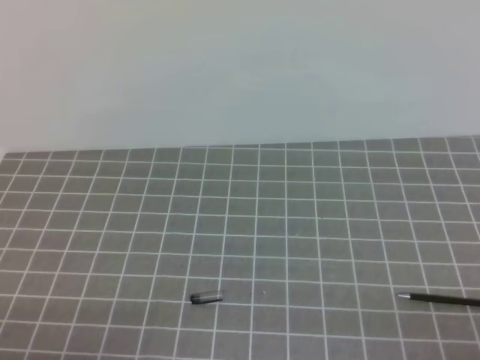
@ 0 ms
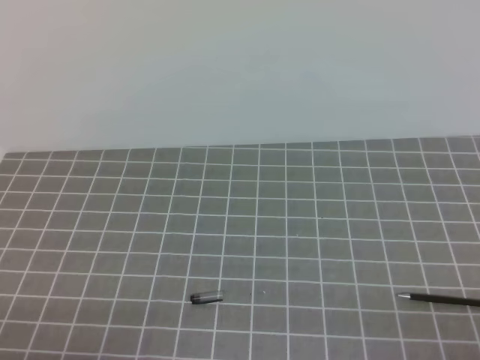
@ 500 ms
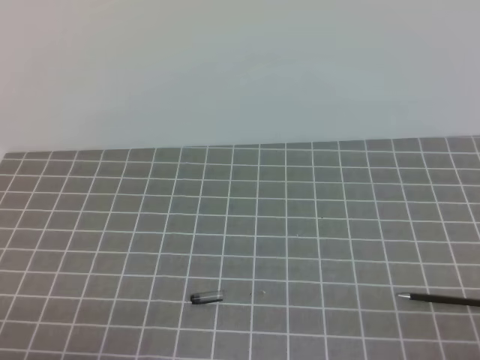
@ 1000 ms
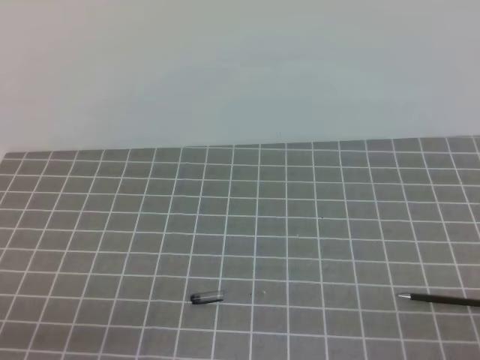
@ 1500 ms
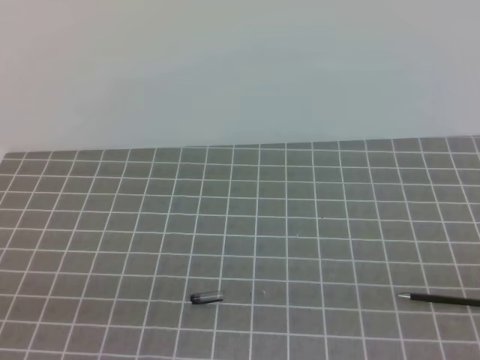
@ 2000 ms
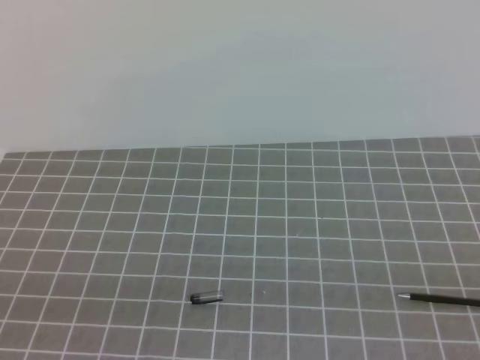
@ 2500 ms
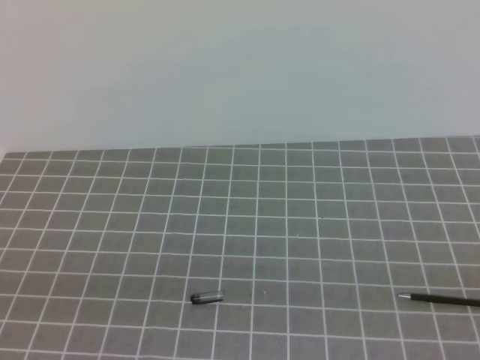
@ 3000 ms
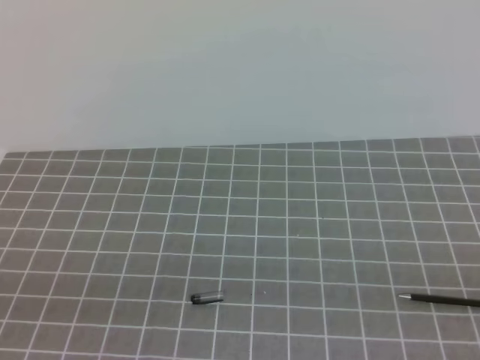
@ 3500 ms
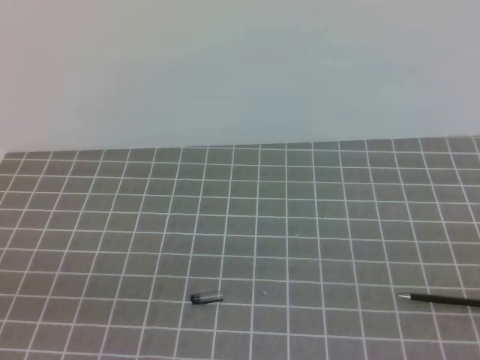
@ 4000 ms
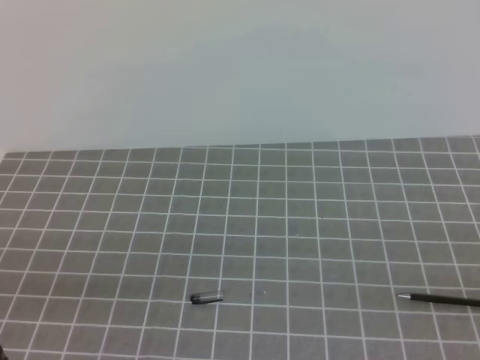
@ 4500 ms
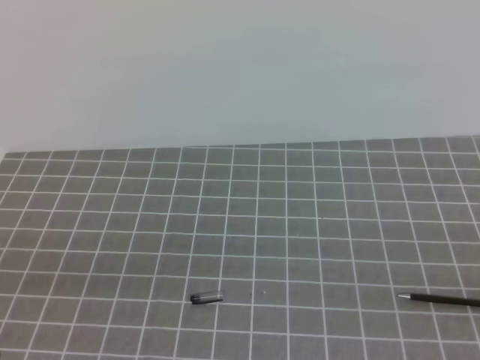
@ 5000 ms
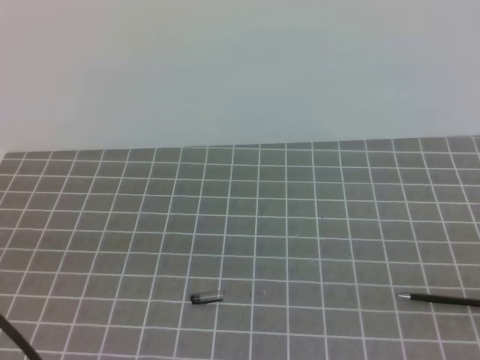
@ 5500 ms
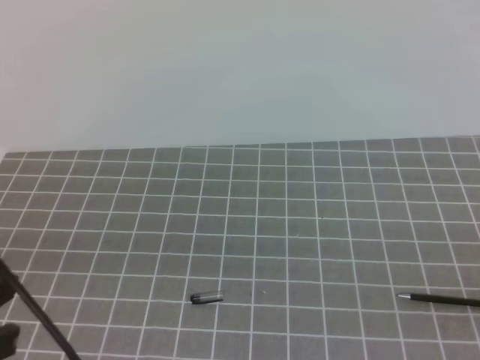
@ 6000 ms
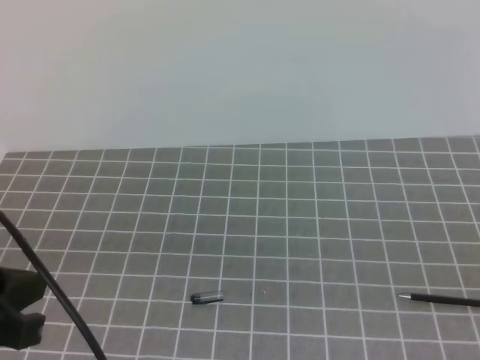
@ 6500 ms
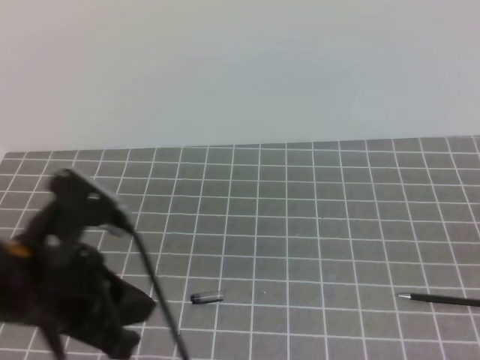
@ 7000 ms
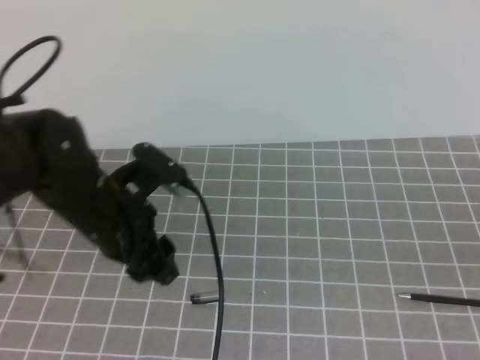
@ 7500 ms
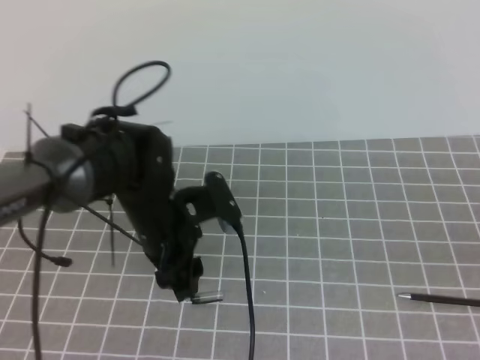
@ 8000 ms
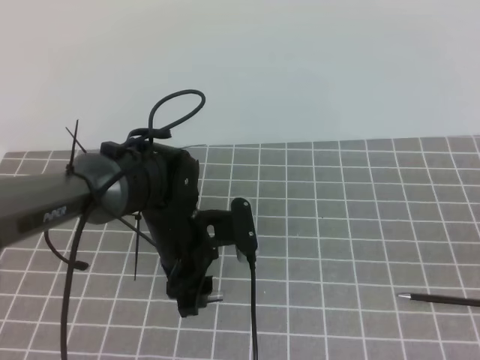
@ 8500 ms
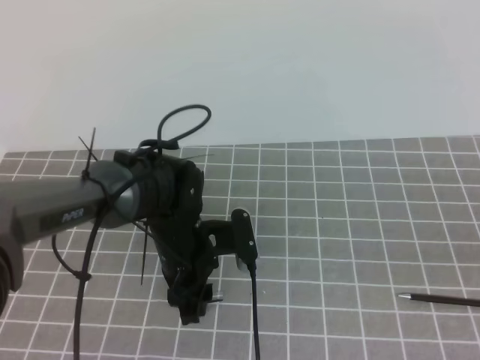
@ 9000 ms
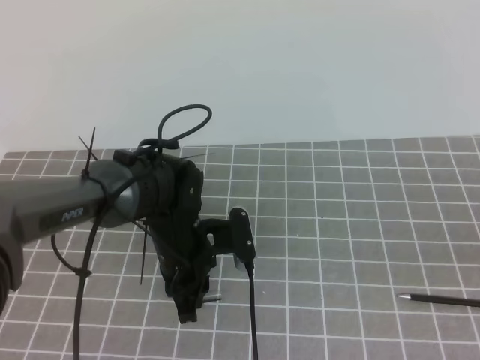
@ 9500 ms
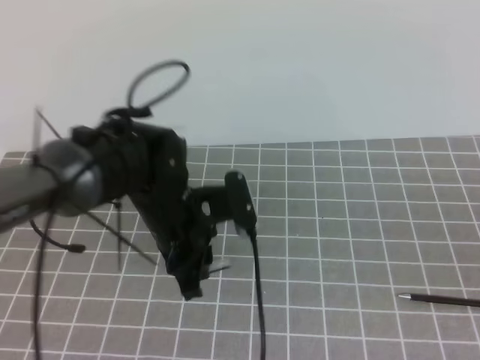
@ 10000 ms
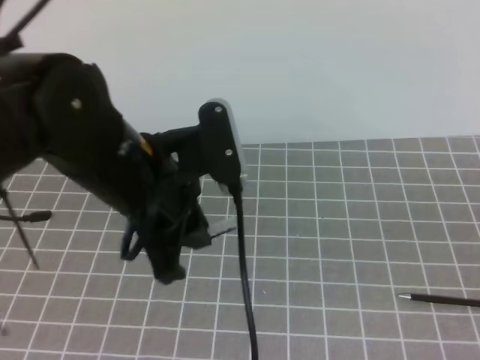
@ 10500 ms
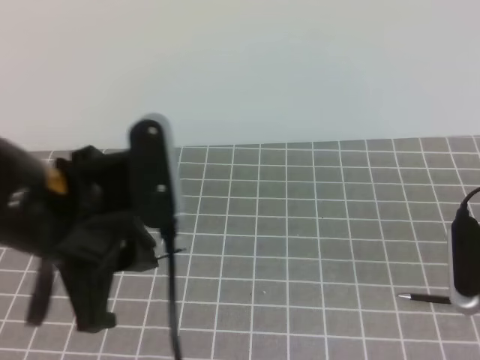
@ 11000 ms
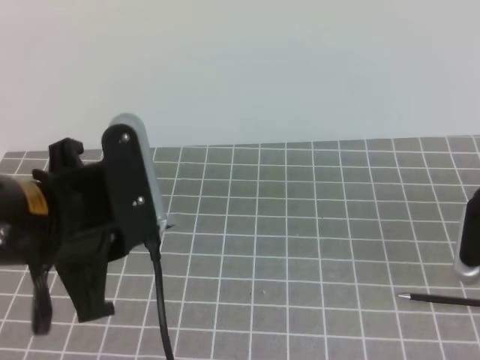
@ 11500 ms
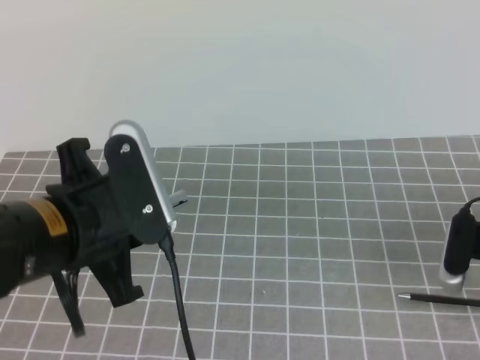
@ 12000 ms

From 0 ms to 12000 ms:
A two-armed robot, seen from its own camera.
Task of the whole recording: on the grey tablecloth, hold the pen cap in one hand and the pen in the other, then cover the pen cap.
From 4000 ms to 6000 ms: The left gripper shifts roughly 10 cm upward and forward.
From 6000 ms to 8000 ms: The right gripper travels upward by roughly 10 cm. Meanwhile the left gripper heads forward, to the right and downward, covering some 25 cm, and opens.
From 8000 ms to 10000 ms: The left gripper closes up.
From 10000 ms to 12000 ms: The right gripper moves forward and downward, about 20 cm, and opens up; the left gripper heads backward, upward and to the left, covering approximately 15 cm.

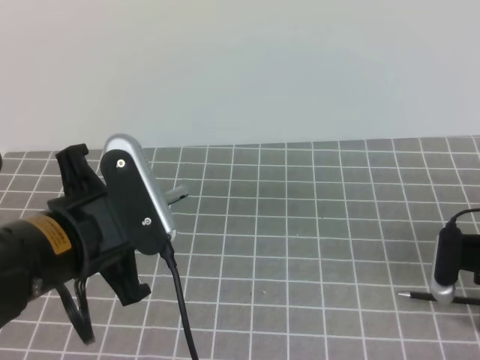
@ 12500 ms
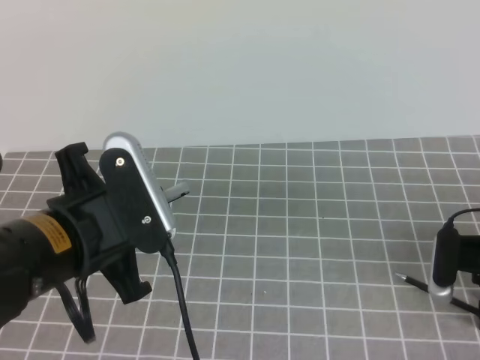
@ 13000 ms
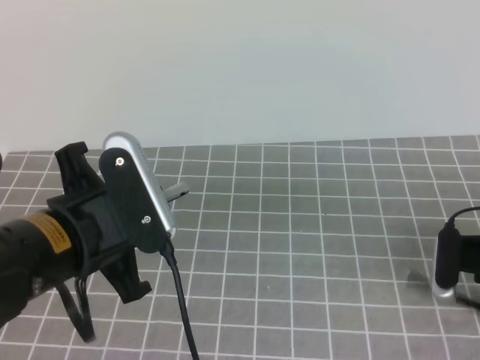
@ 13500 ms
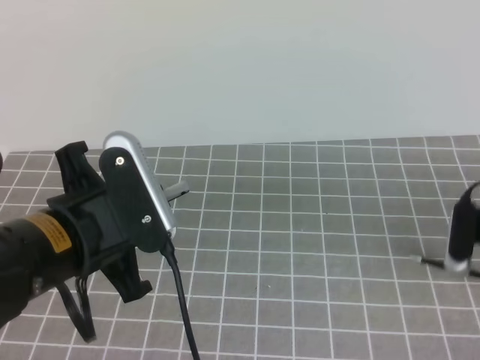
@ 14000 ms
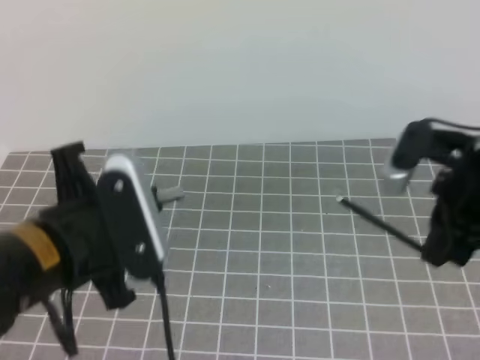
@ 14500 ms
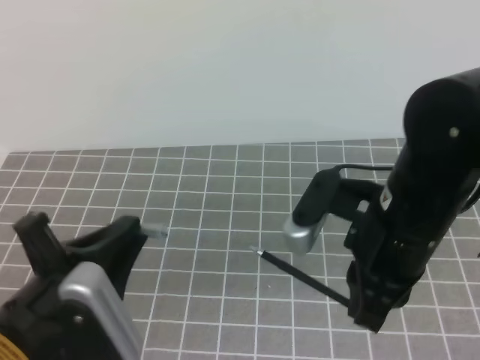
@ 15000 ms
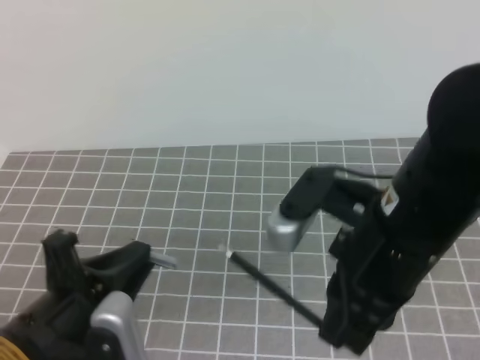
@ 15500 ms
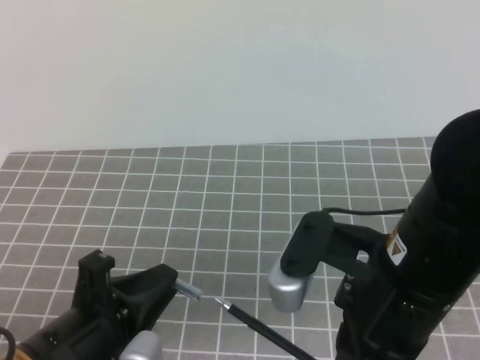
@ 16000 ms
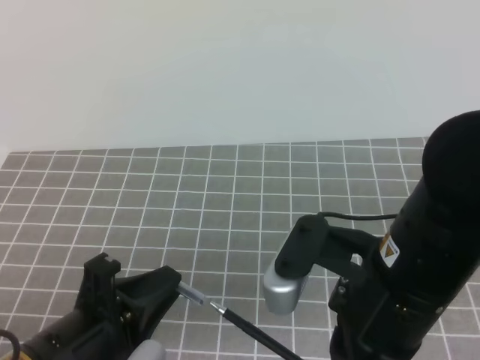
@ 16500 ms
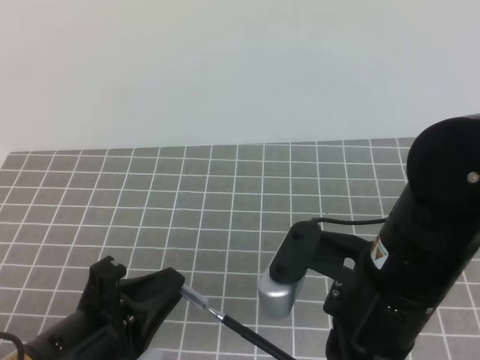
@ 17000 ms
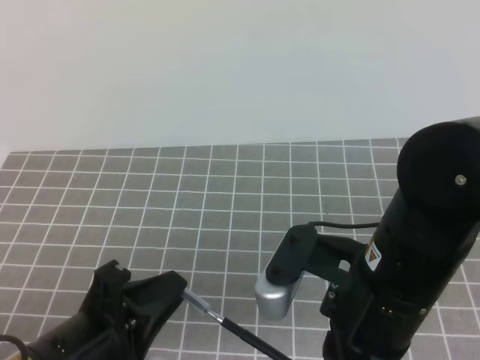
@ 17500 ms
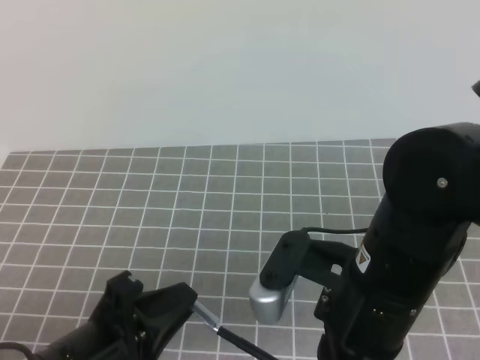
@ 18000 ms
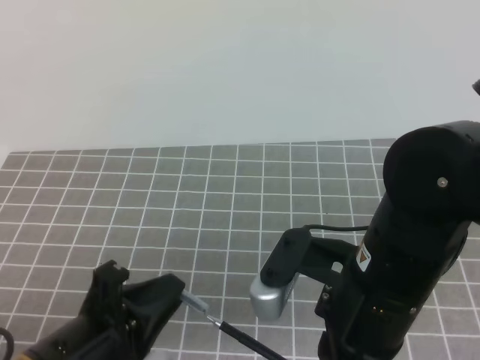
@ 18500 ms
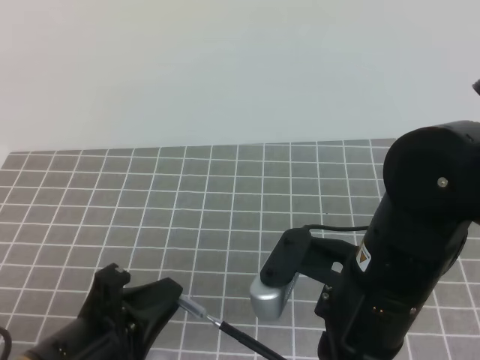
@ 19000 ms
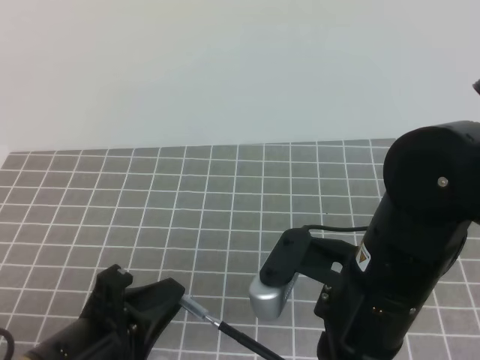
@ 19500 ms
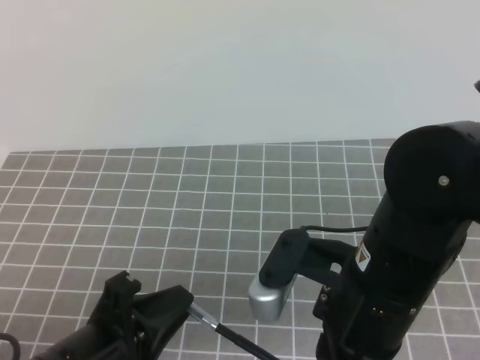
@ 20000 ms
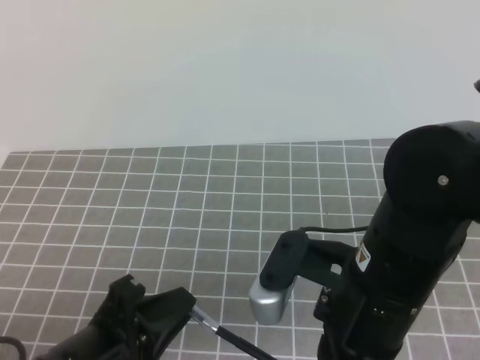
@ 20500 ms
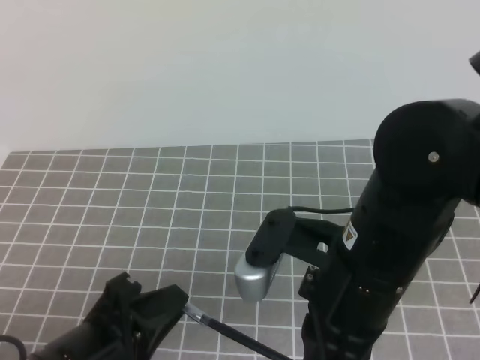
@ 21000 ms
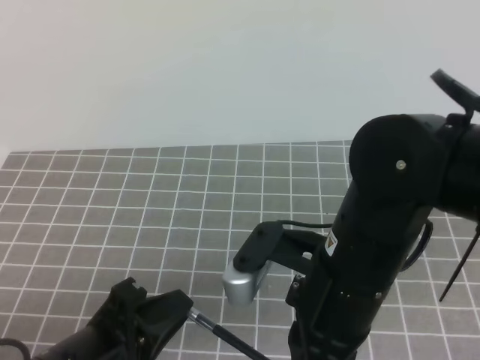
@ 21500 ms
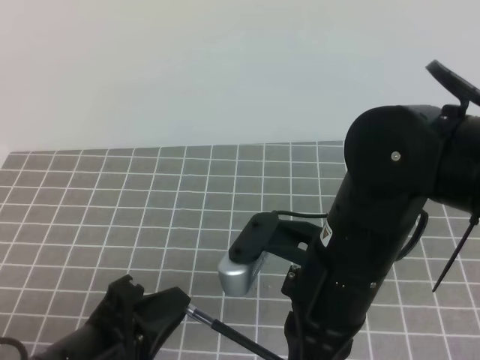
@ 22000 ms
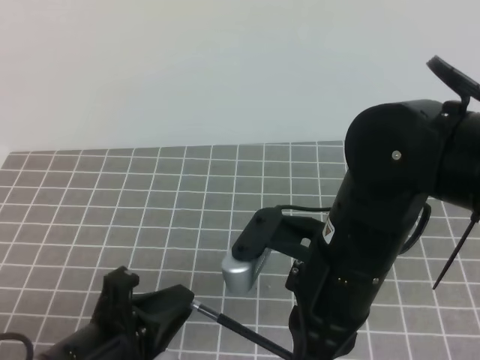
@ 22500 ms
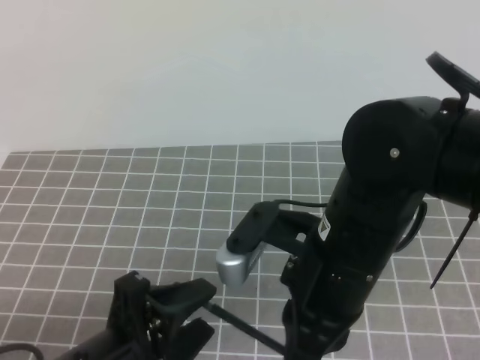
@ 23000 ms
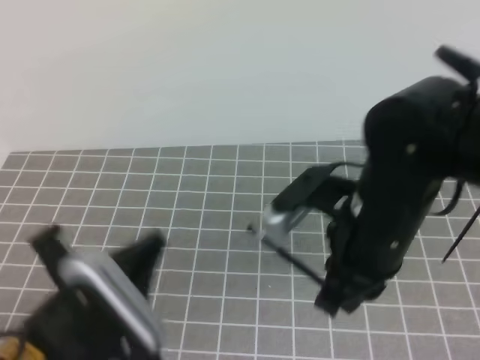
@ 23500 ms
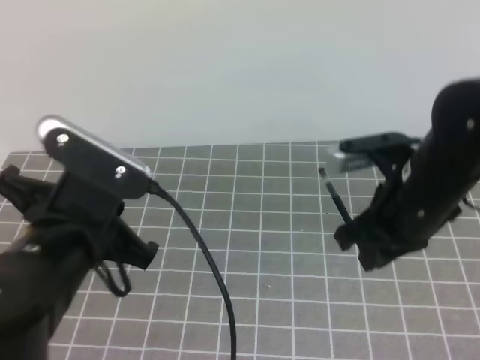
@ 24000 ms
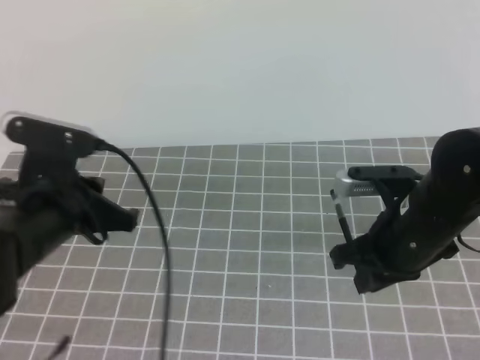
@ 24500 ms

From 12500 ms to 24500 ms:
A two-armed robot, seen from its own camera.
Task of the whole recording: on the grey tablecloth, hold the pen cap in one hand and the pen in the other, then cover the pen cap.
From 12500 ms to 14500 ms: The right gripper moves upward and to the left, approximately 15 cm, and closes its fingers.
From 14500 ms to 16500 ms: The right gripper moves backward and to the left, about 15 cm, while the left gripper goes approximately 10 cm downward and backward.
From 16500 ms to 22500 ms: The grippers stay close to where they were, moving slightly.
From 22500 ms to 24500 ms: The right gripper heads to the right, forward and downward, covering roughly 15 cm. The left gripper moves forward, approximately 15 cm, and opens, then closes once more.

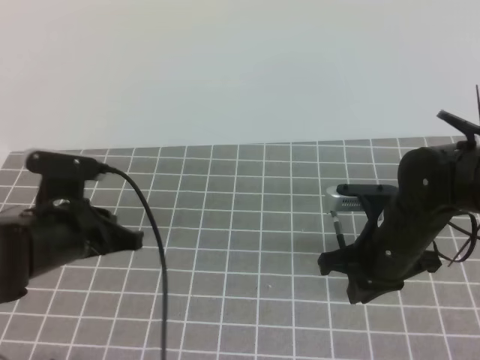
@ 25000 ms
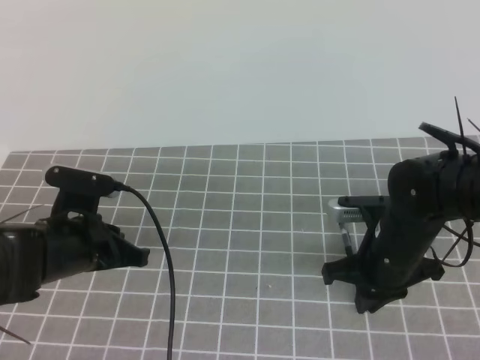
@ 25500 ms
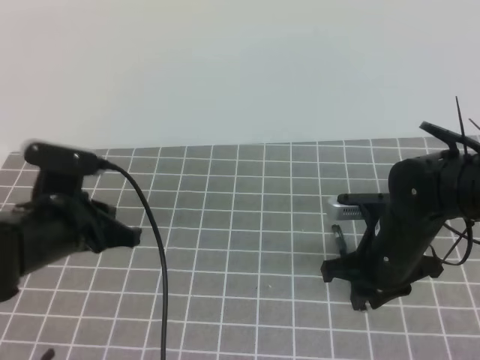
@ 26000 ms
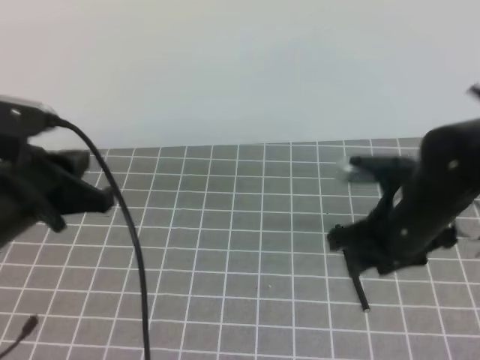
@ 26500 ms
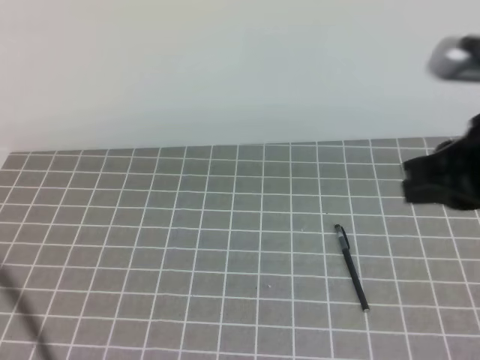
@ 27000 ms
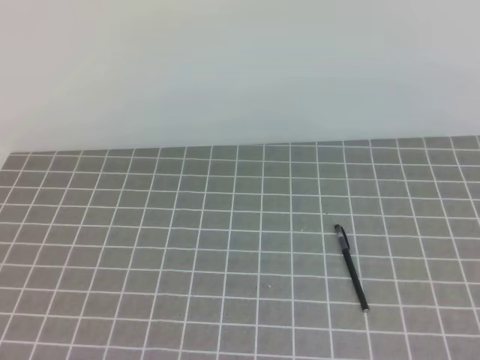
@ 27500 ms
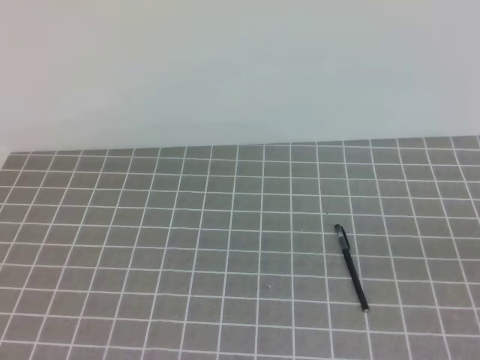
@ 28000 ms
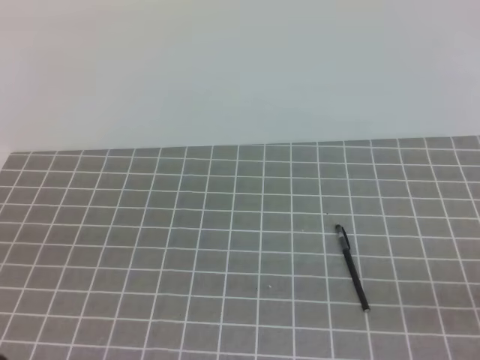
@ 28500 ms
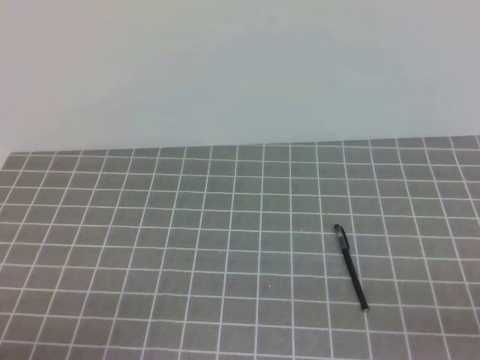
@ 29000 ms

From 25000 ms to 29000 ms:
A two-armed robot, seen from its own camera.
Task of the whole recording: on the grey tablecloth, hold the pen cap in one hand and the pen in the other, then cover the pen cap.
From 25000 ms to 27000 ms: The right gripper heads upward, covering some 20 cm, and opens, then closes once more, while the left gripper shifts roughly 20 cm upward and backward.
From 27000 ms to 29000 ms: The left gripper heads downward and backward, covering some 20 cm; the right gripper moves backward, downward and to the right, approximately 25 cm.
